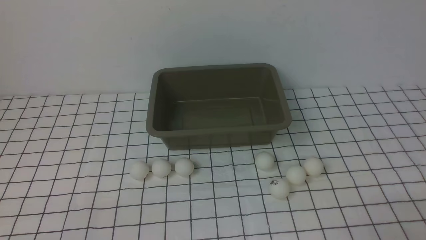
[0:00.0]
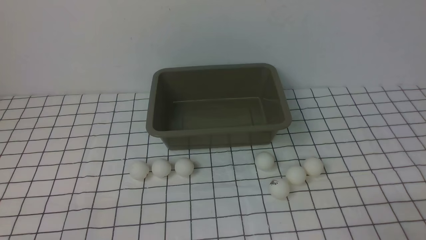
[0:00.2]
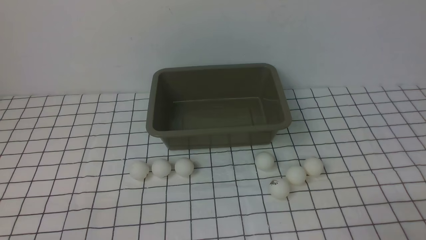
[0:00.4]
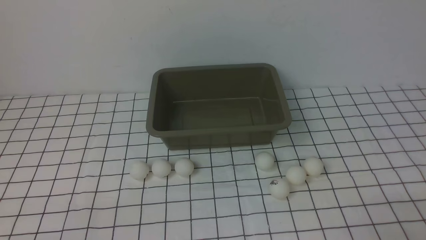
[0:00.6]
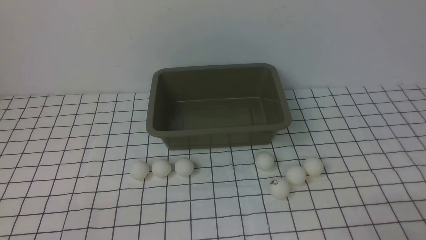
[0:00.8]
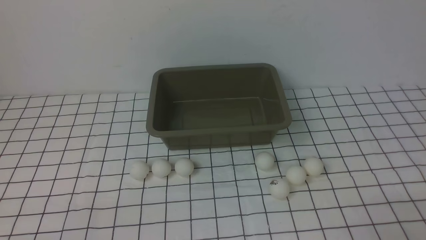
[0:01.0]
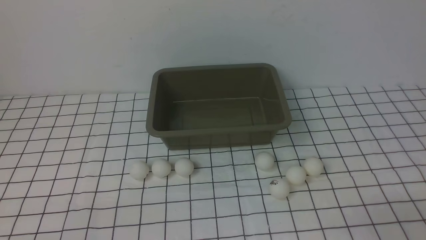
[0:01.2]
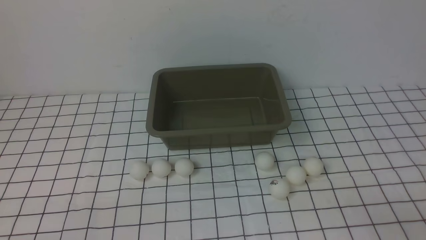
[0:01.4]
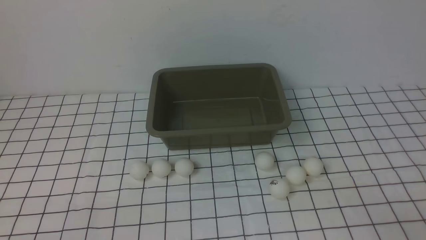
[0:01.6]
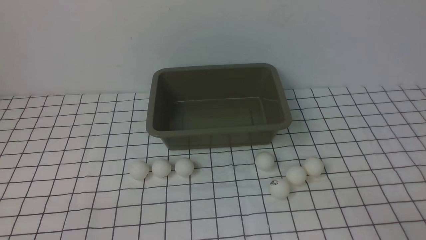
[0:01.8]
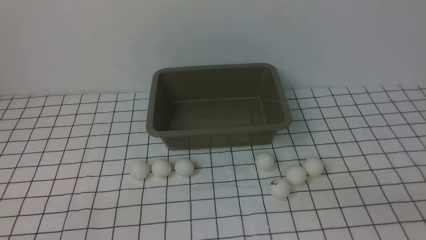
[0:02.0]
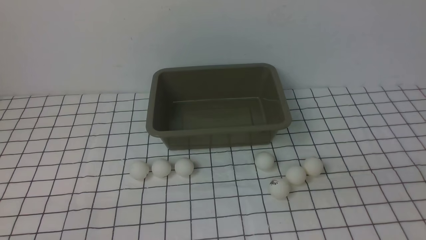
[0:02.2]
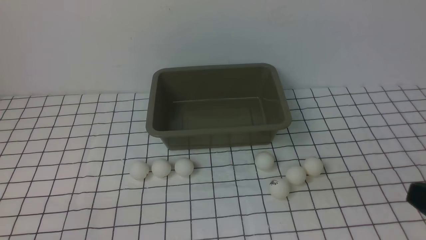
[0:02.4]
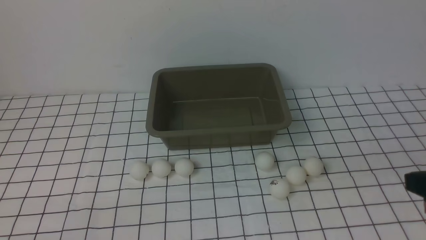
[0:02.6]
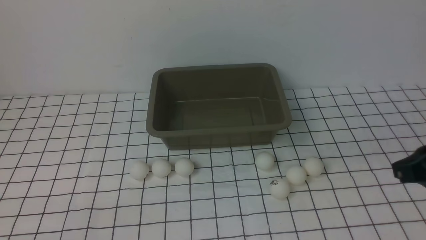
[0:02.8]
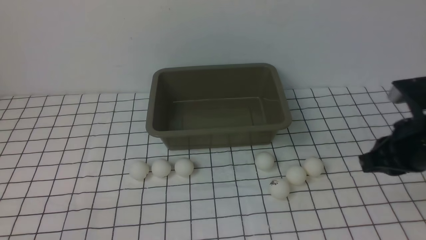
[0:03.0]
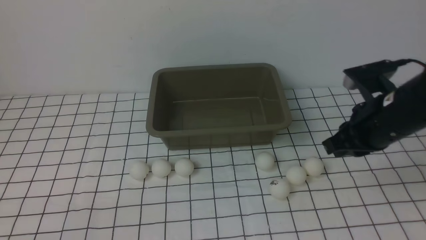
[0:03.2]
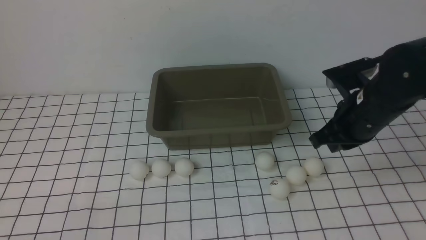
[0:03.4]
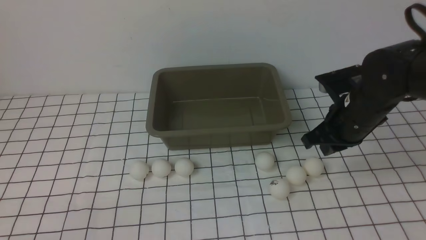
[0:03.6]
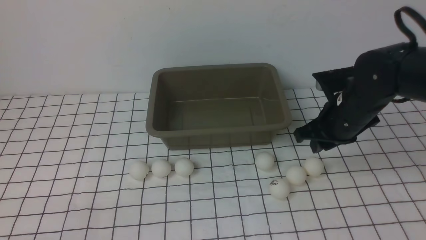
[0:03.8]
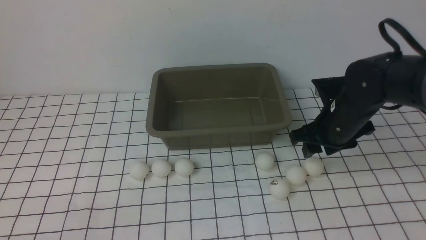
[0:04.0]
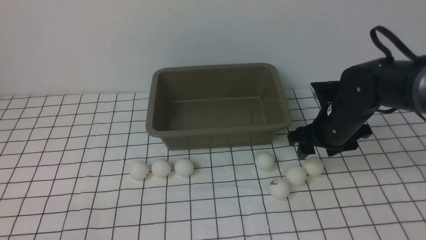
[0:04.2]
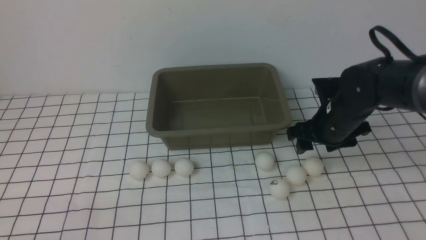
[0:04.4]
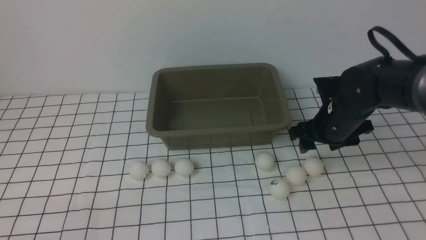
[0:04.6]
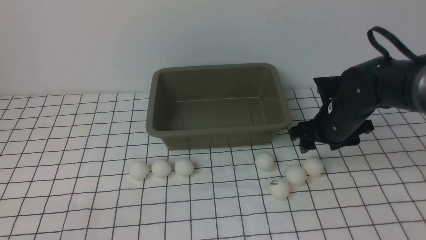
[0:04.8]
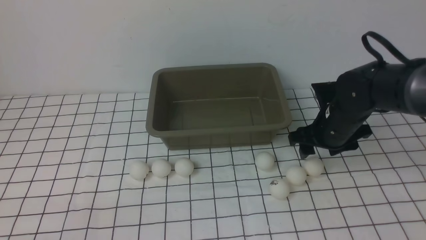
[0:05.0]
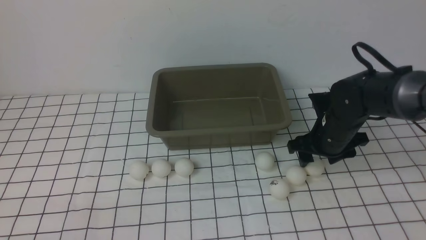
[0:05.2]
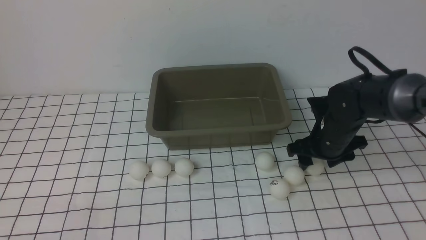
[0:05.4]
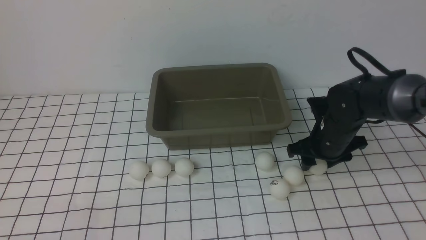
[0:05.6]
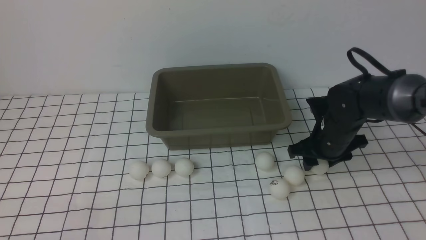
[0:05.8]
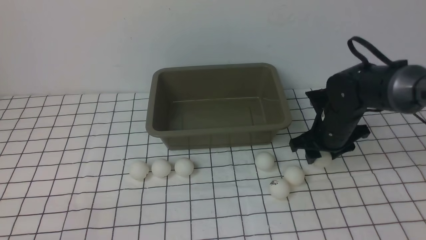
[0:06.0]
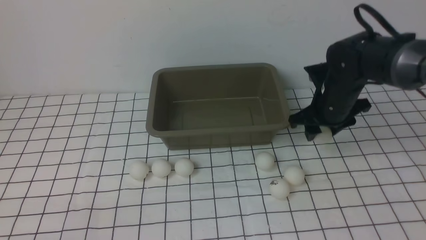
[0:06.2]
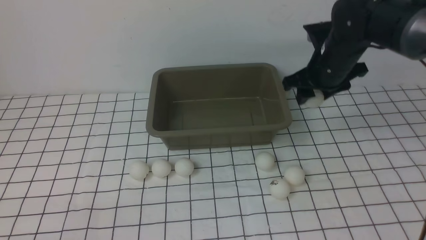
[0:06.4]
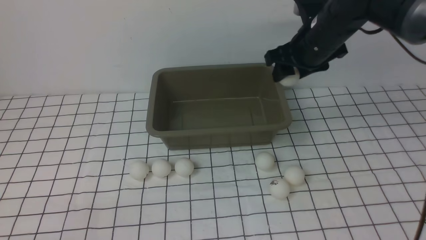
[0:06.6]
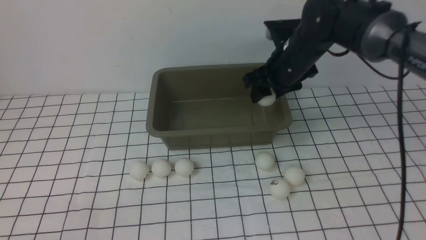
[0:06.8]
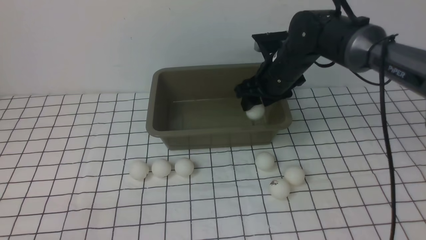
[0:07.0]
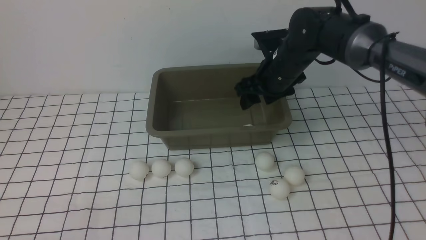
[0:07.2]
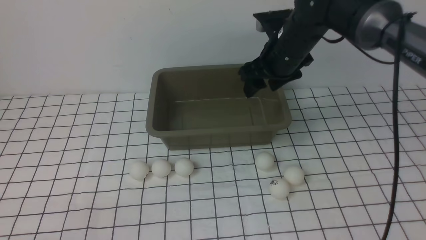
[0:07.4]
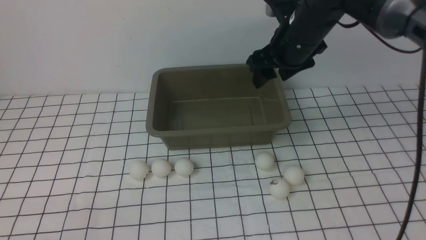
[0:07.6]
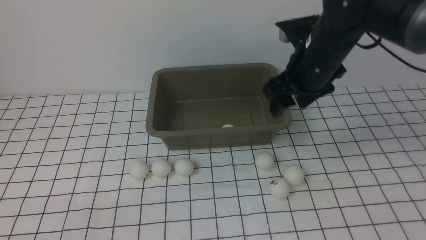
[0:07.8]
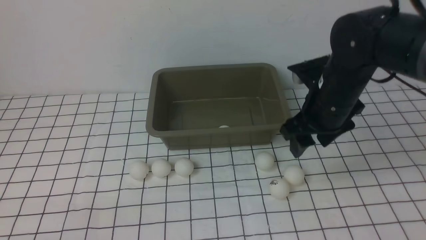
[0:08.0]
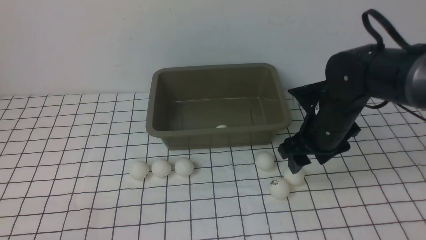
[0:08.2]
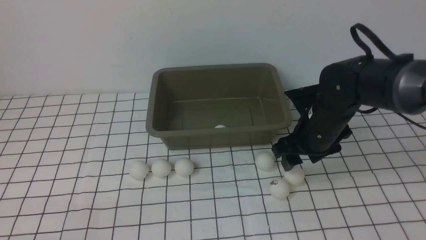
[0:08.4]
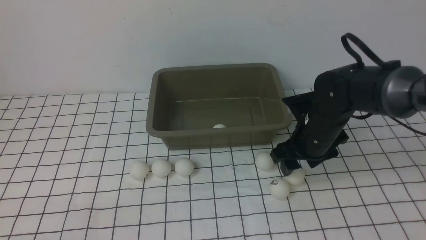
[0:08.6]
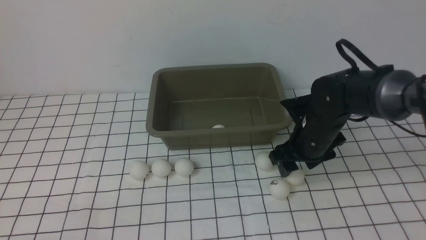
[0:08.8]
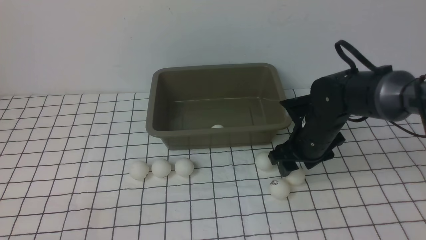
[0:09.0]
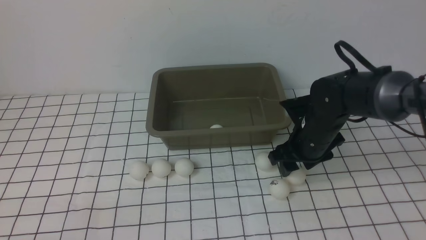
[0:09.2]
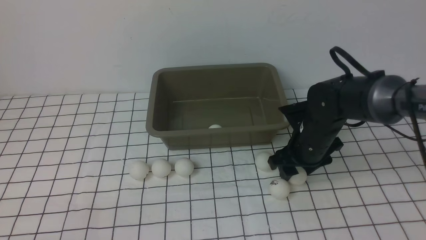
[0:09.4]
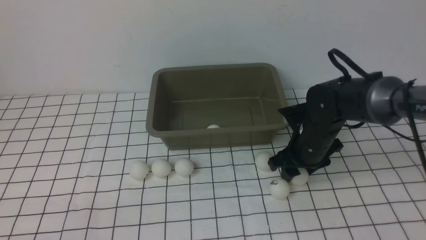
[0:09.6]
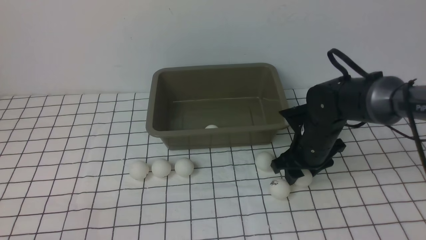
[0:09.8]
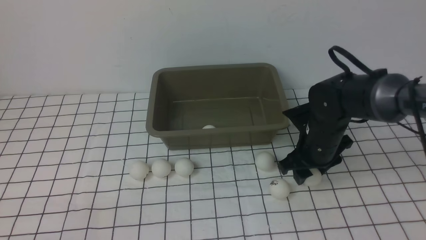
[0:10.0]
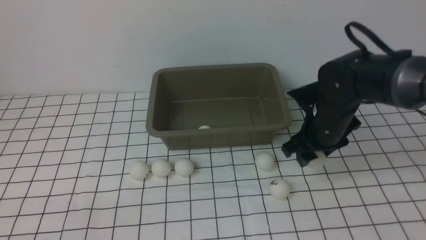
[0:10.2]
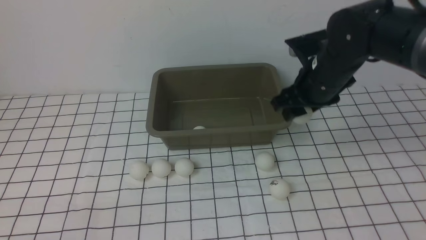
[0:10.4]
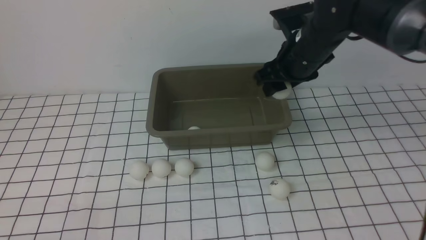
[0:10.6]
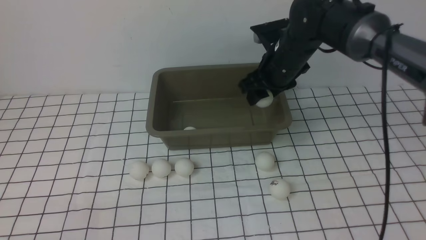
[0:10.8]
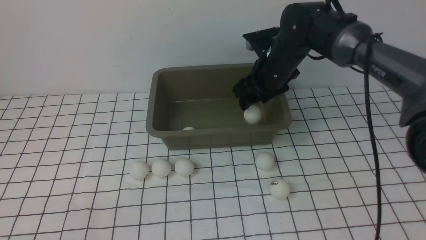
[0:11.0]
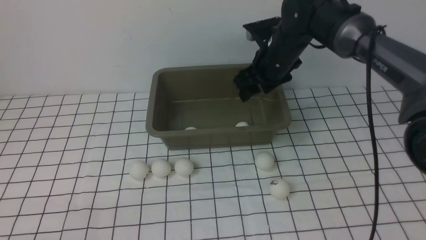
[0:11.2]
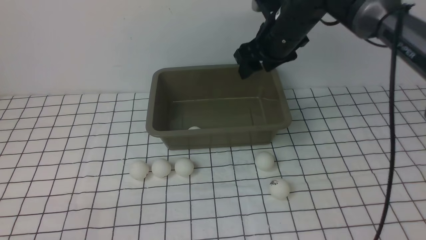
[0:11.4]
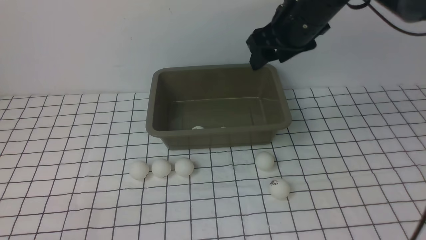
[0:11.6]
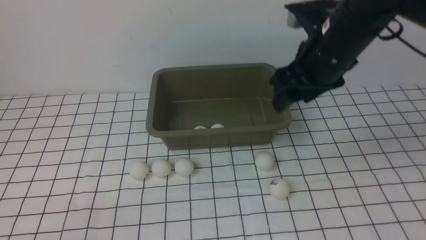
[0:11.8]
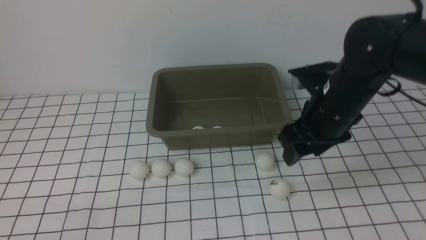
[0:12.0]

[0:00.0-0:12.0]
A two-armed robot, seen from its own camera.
Step, 0:00.0 to 0:06.2: use the right arm to clamp the table tennis ball closest to it.
Step, 0:06.4 to 0:07.2: use the right arm to put the table tennis ball into the box.
Step, 0:07.4 to 0:10.4: use the right arm to clamp the table tennis ball closest to it.
Step, 0:10.6 to 0:11.2: use the right arm to put the table tennis ball into the box.
0:01.6 to 0:03.0: The right gripper heads forward and upward, covering approximately 20 cm.
0:03.0 to 0:04.4: The right gripper shifts roughly 15 cm forward, downward and to the left, and opens.
0:04.4 to 0:06.0: There are only small adjustments of the grippers.
0:06.0 to 0:07.6: The right gripper shifts roughly 15 cm upward and to the left.
0:07.6 to 0:09.0: The right gripper shifts about 15 cm downward and backward.
0:09.0 to 0:10.4: The right gripper shifts about 5 cm upward.
0:10.4 to 0:12.0: The right gripper is displaced upward by roughly 5 cm, and reaches some 10 cm forward, then returns.

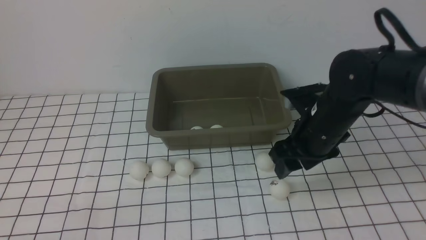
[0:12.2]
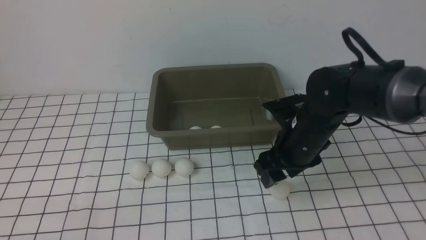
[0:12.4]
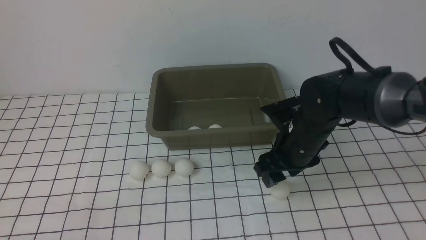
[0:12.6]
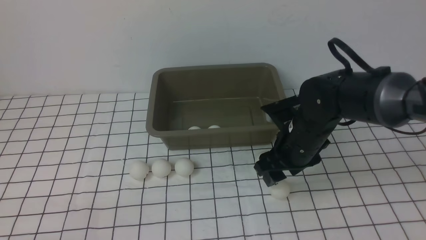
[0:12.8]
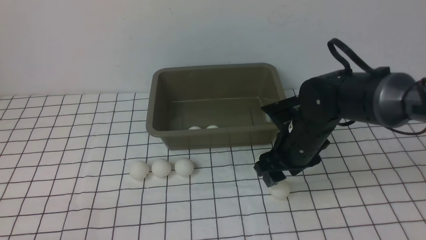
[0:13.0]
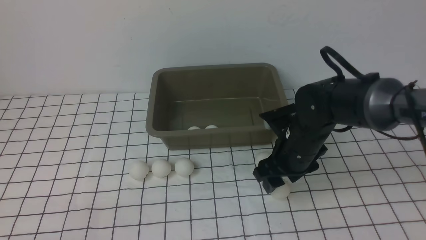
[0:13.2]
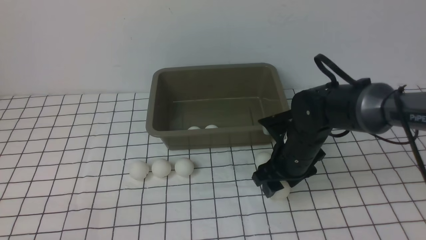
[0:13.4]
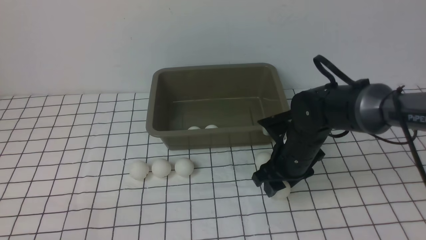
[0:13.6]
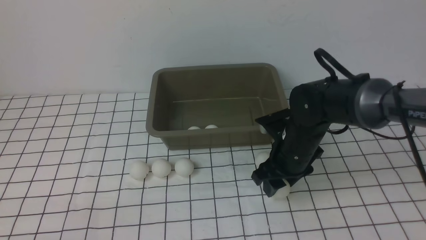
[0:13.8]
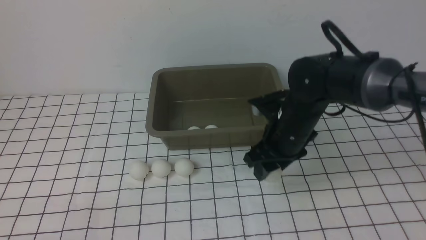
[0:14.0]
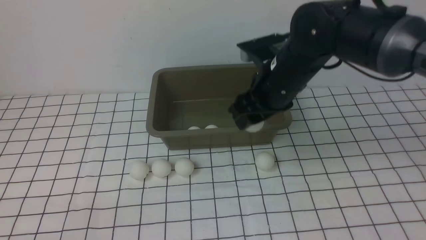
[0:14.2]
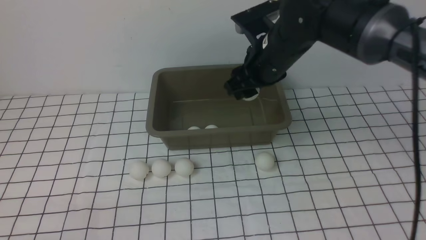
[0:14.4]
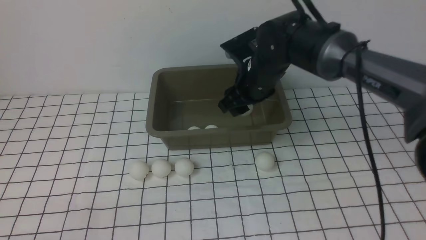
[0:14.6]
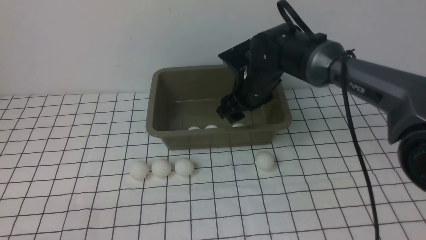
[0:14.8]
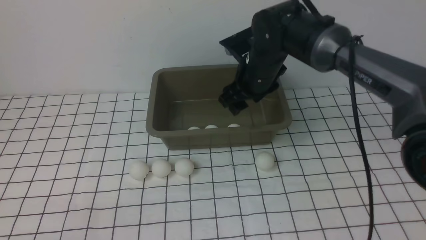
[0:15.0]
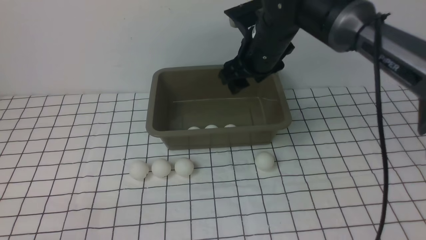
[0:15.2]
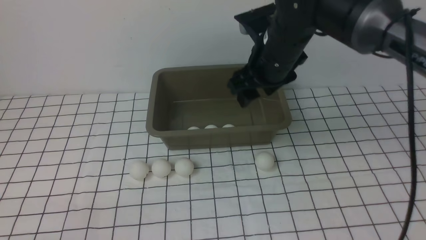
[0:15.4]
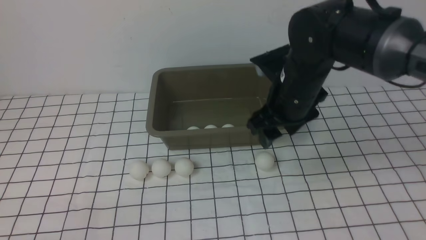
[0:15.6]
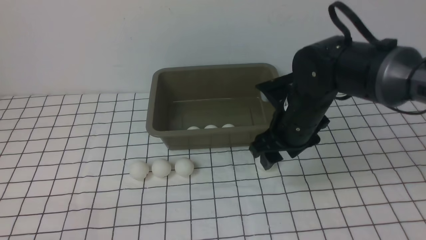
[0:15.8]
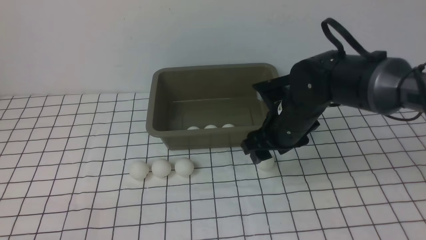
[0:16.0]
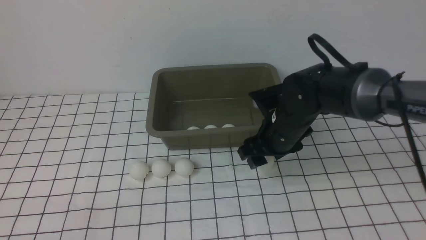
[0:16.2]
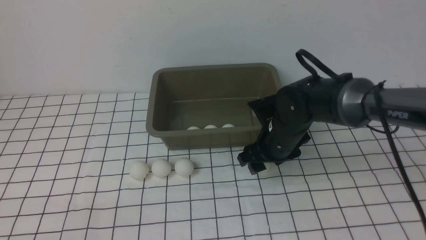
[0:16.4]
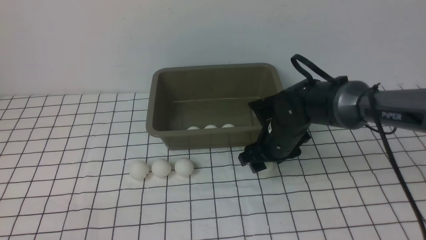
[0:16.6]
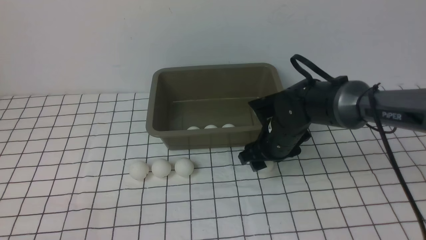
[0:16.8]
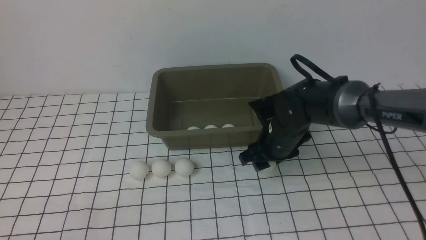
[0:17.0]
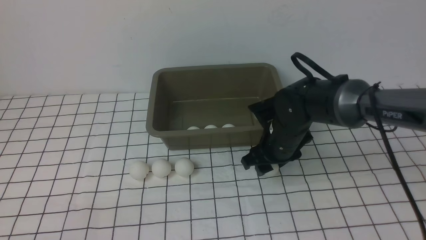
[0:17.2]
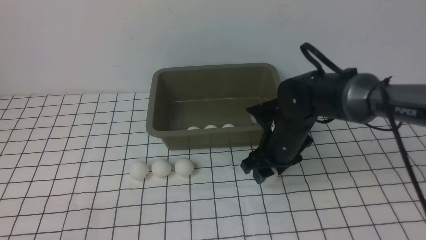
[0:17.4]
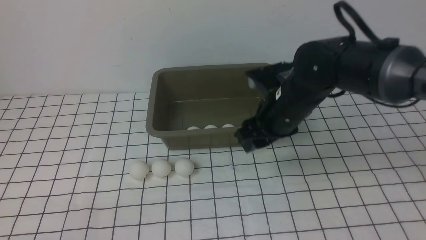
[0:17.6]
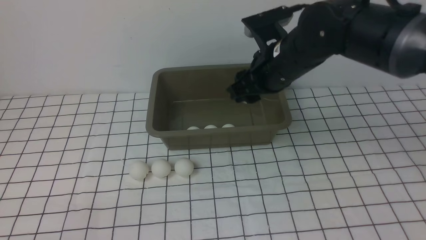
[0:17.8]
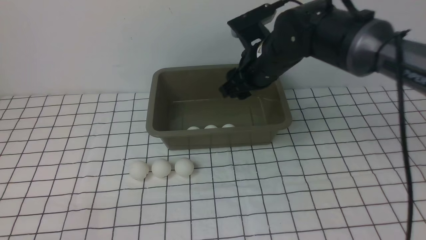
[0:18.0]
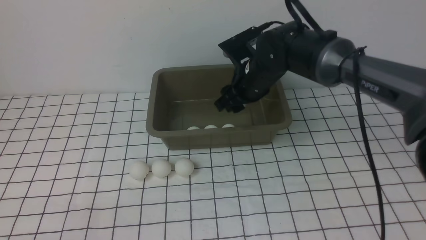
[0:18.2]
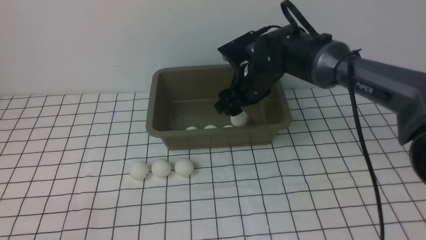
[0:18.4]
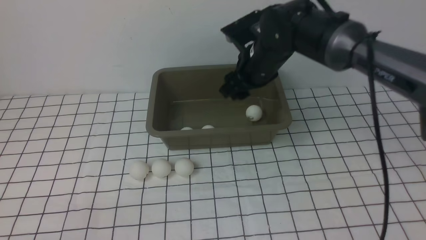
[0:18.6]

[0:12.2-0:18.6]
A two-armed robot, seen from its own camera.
Step, 0:12.2 to 0:14.0: use the right arm to clamp the table tennis ball closest to it.
Step, 0:14.2 to 0:14.8: use the right arm to put the table tennis ball into the box.
Step, 0:15.0 to 0:17.4: use the right arm to clamp the table tennis ball closest to it.
Step, 0:17.8 to 0:18.6: use the right arm to put the table tennis ball into the box.
0:12.2 to 0:13.8: The right gripper heads downward, covering about 10 cm.
0:13.8 to 0:15.4: The right gripper moves upward and forward, about 15 cm.
0:15.4 to 0:17.0: The right gripper goes roughly 15 cm downward.
0:17.0 to 0:18.6: The right gripper moves up and down over roughly 10 cm, changing direction 2 times.
